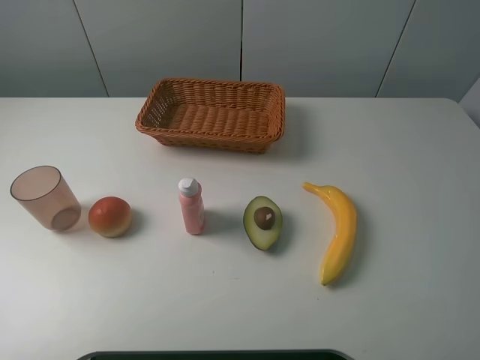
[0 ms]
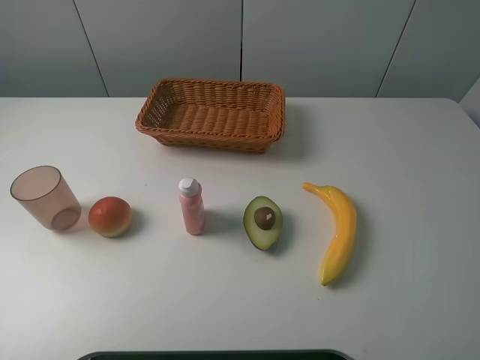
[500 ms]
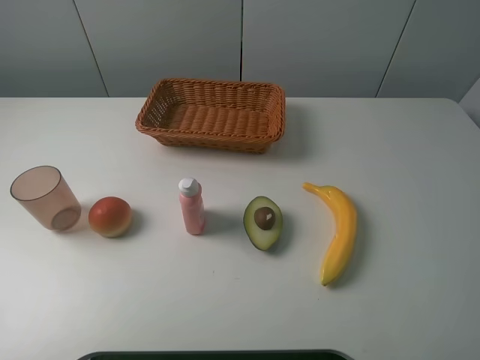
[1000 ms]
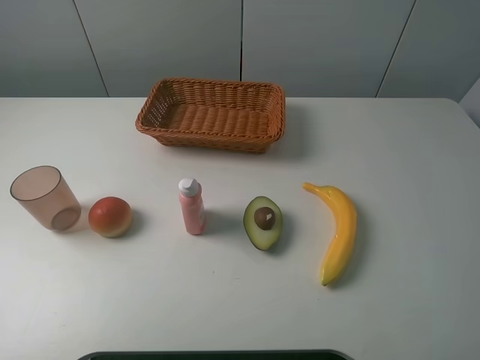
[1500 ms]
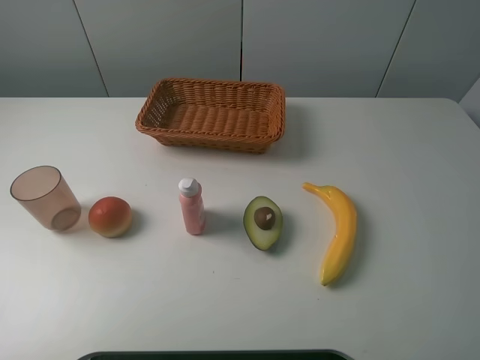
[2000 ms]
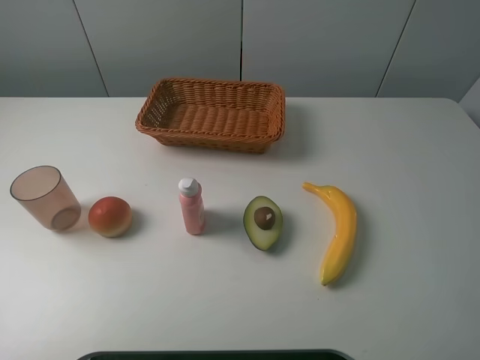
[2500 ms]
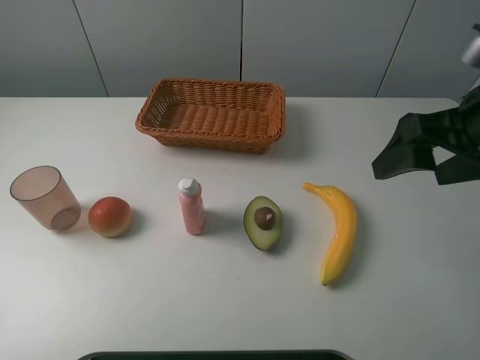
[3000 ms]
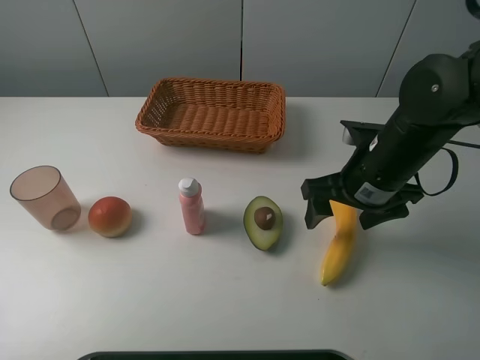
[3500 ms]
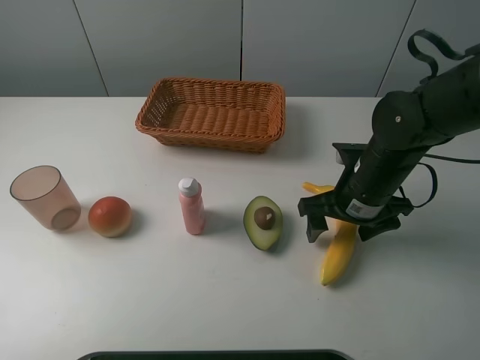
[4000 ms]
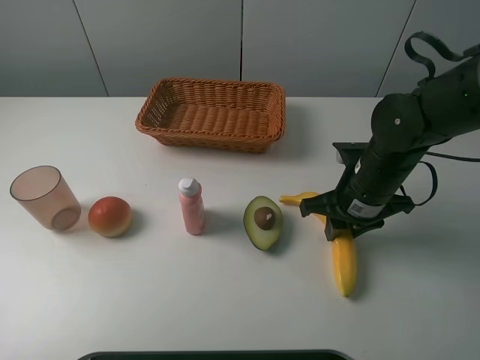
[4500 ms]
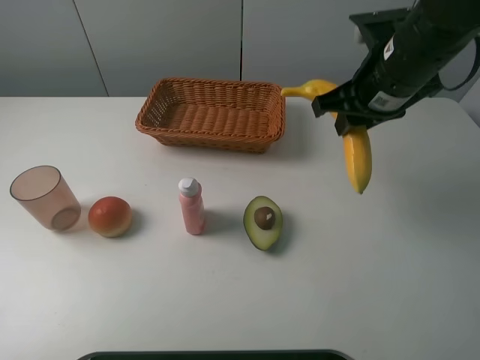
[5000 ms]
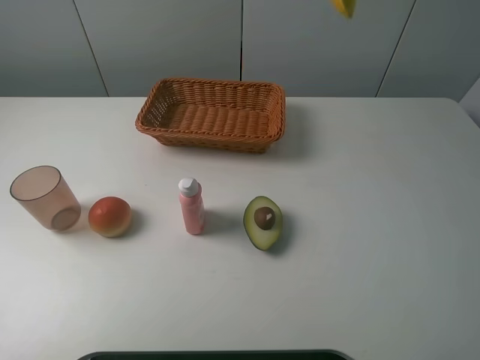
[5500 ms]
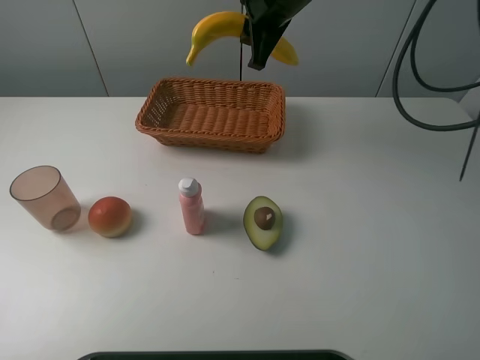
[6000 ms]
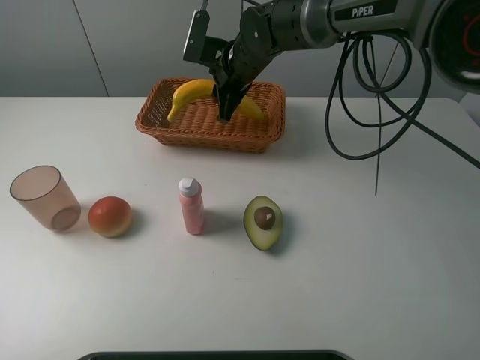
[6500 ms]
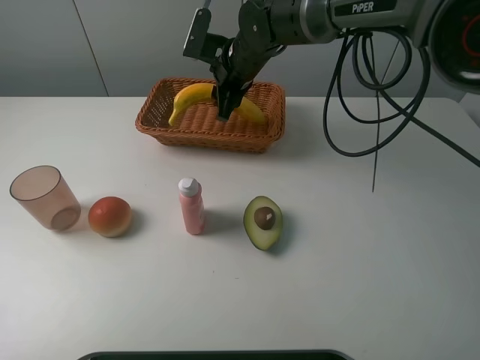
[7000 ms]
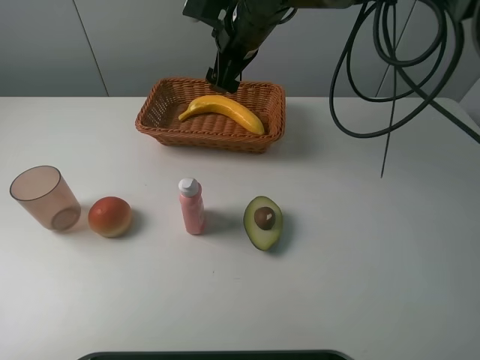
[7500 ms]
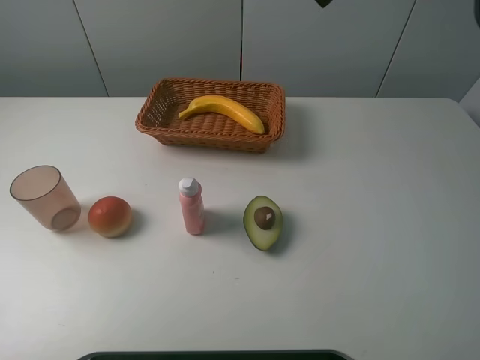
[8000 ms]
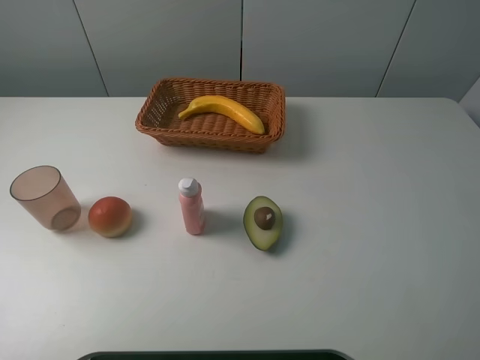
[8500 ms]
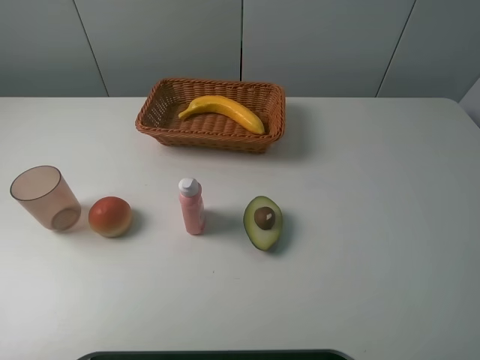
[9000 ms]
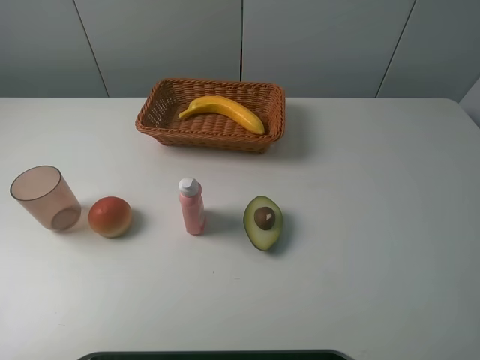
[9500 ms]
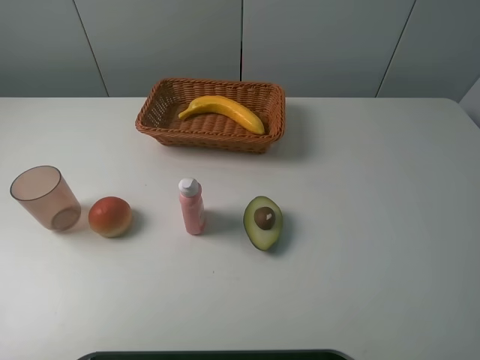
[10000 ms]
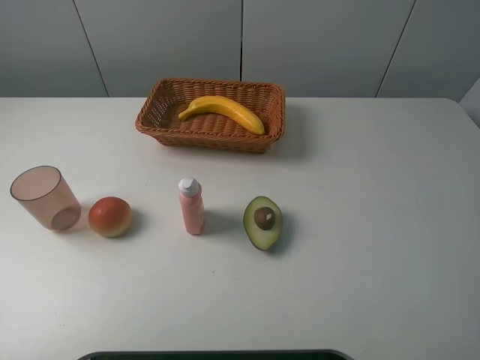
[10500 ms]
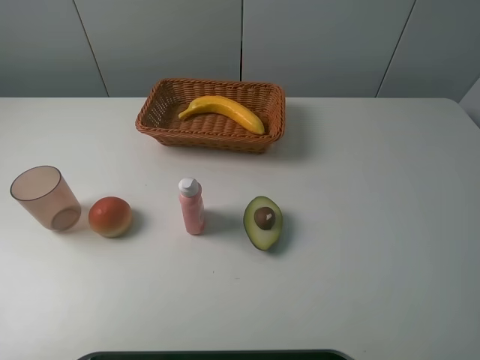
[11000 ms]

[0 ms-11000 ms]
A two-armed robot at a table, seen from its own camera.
Task of the whole recording: randomly pick up an item from the table and put it in the basket.
Step, 0 ms to 4500 ms: Grasp the banana with the right gripper.
Step, 5000 ms to 7500 ms: Place the banana into the basket with the right gripper.
0 ms to 2000 ms: Both grippers stay about where they are.
2000 ms to 3500 ms: The right gripper heads forward, downward and to the left, covering roughly 30 cm.
3500 ms to 5500 ms: The right gripper moves upward and forward, about 25 cm, and closes its fingers.
5500 ms to 7500 ms: The right gripper moves downward, to the left and forward, approximately 20 cm, and opens up.
7500 ms to 9000 ms: The right gripper goes about 40 cm backward and to the right.

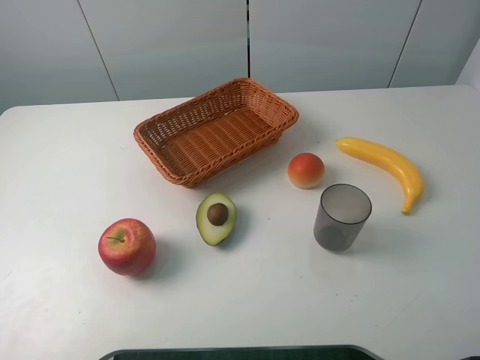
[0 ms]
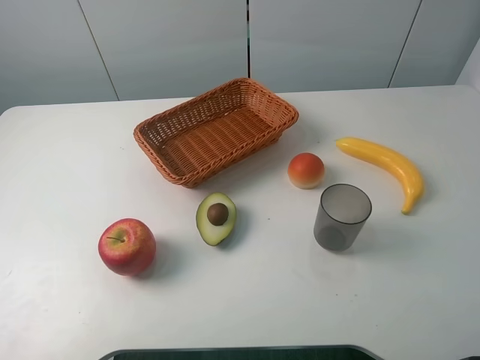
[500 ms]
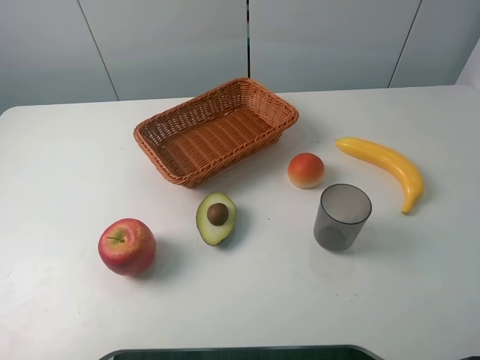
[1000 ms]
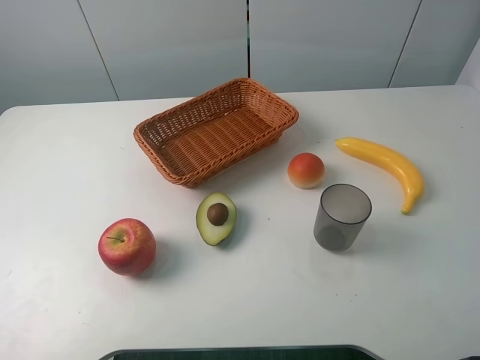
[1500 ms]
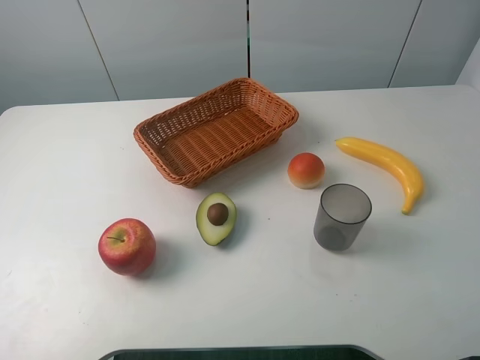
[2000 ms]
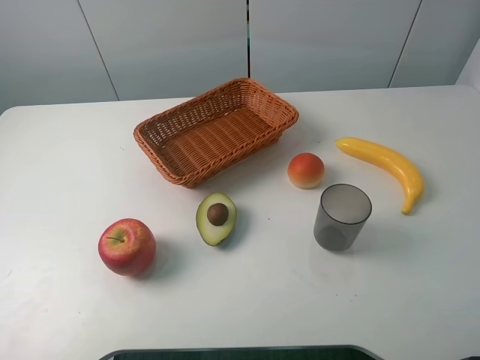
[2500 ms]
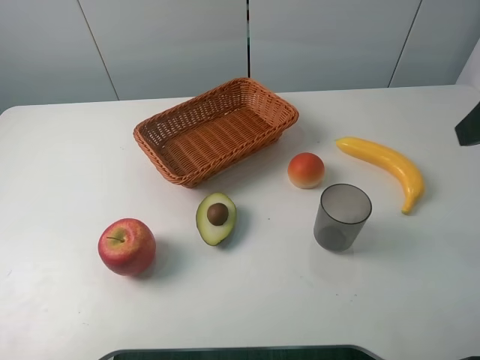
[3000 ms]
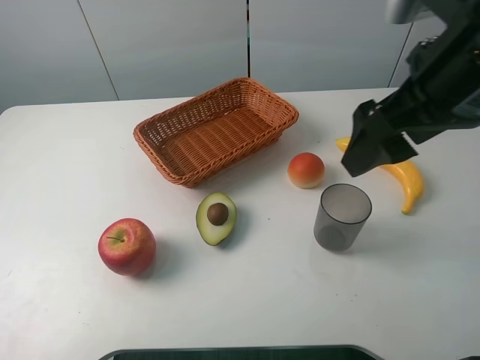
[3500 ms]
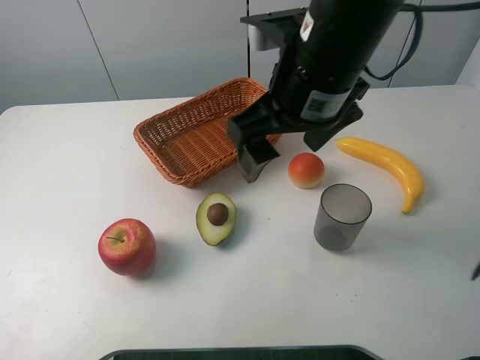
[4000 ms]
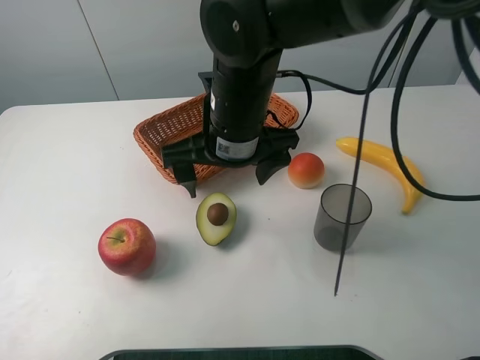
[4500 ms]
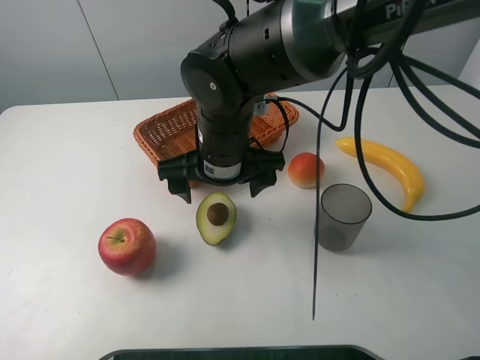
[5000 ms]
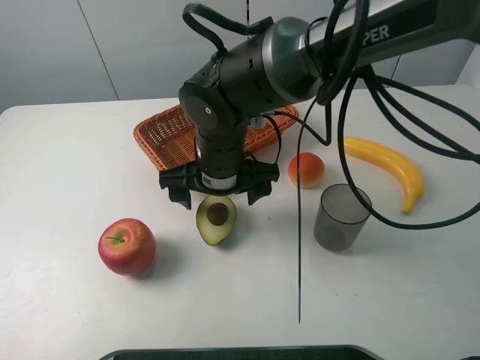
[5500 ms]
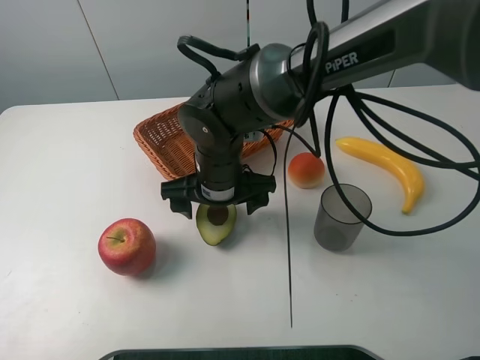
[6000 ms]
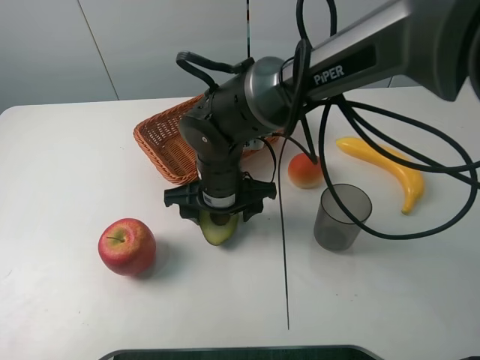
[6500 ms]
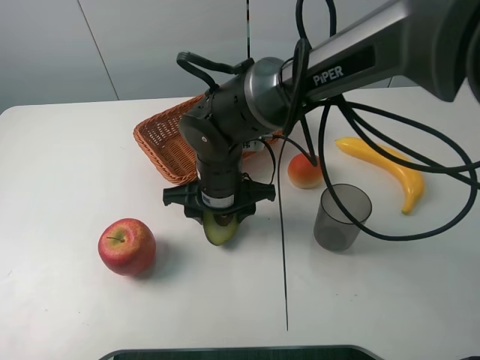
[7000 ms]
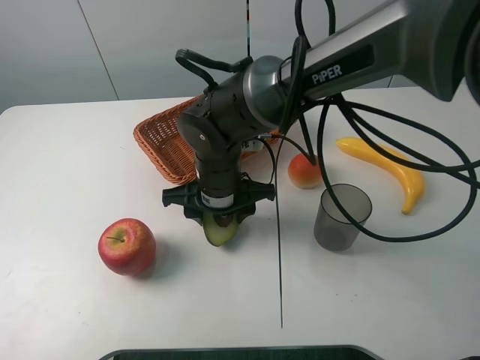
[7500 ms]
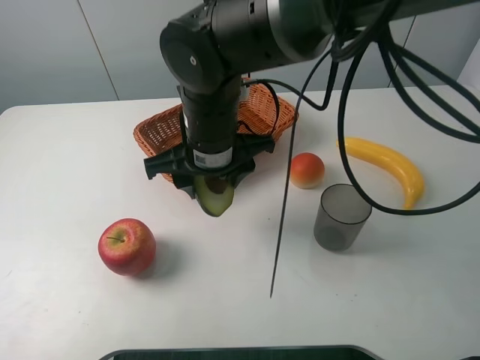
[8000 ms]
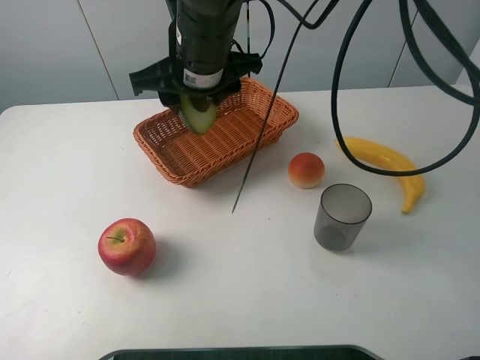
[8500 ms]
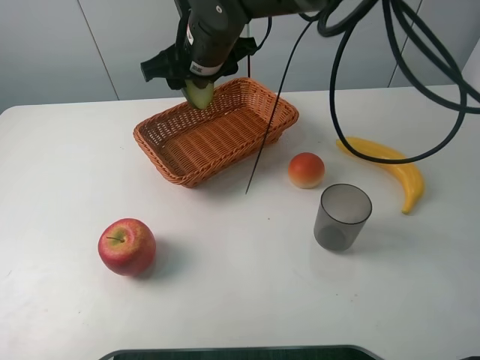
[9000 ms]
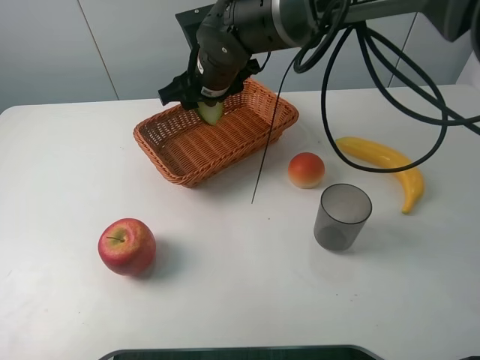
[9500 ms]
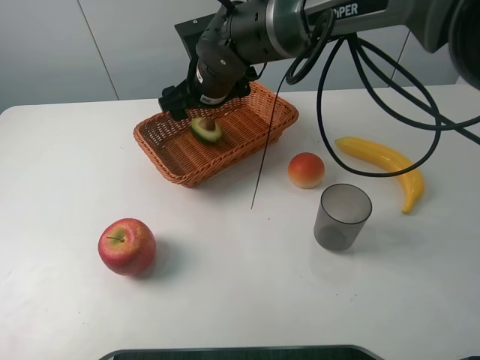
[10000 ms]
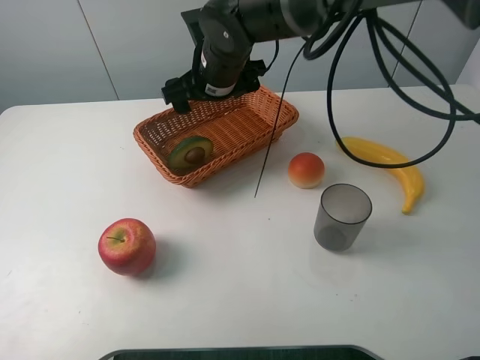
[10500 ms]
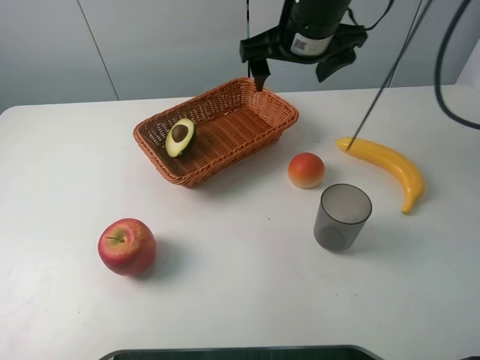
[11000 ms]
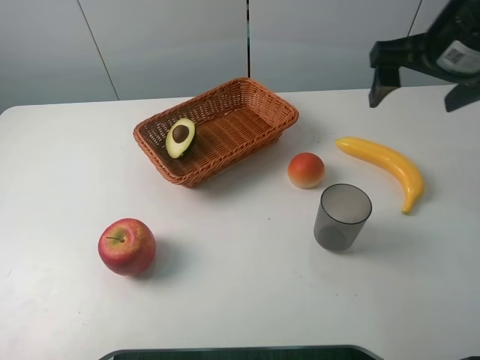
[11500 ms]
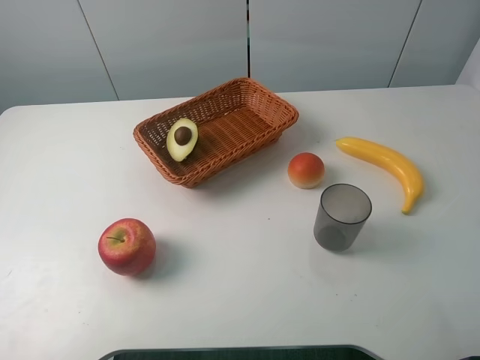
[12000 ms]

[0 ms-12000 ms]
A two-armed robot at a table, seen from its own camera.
Task of the whole recording: randomly pick up an item from the table and put it in the basket.
Step, 0 ms to 6500 ms: Grasp the avocado with the right gripper.
Step, 7000 ms to 10000 ms: Place the avocado into the basket with the right gripper.
2000 ms to 4000 ms: The right gripper shifts about 30 cm to the left and forward.
4000 ms to 6000 ms: The right gripper is displaced downward and to the left by roughly 20 cm.
6000 ms to 8000 ms: The right gripper travels upward by approximately 10 cm, and closes.
8000 ms to 10000 ms: The right gripper is displaced forward by roughly 10 cm, and opens up.
10000 ms to 12000 ms: The right gripper shifts approximately 40 cm to the right, backward and upward.

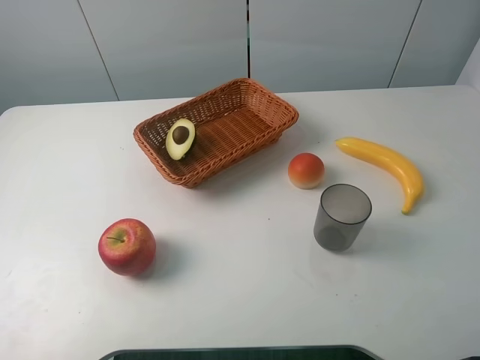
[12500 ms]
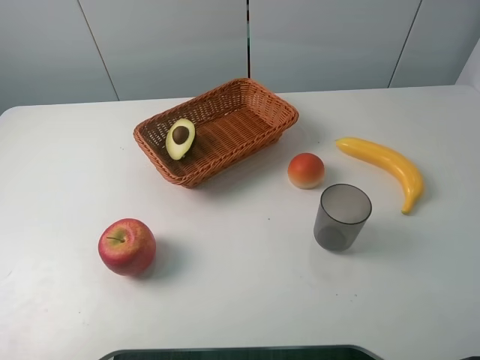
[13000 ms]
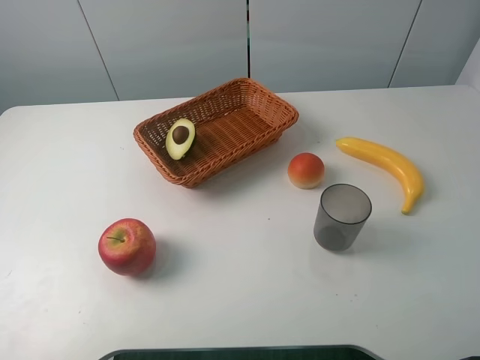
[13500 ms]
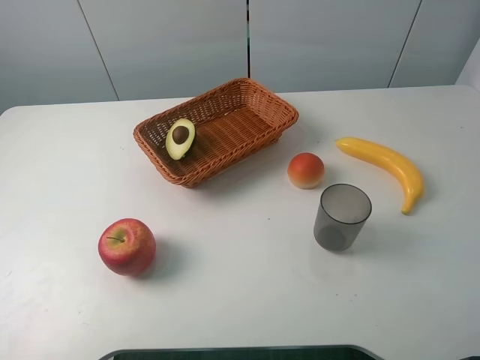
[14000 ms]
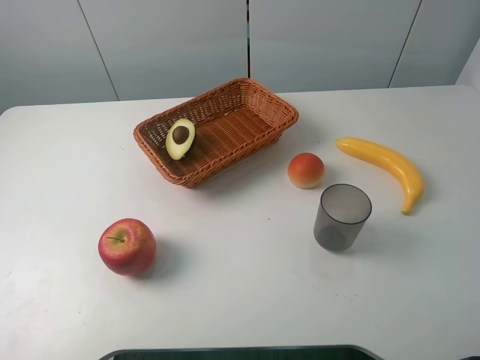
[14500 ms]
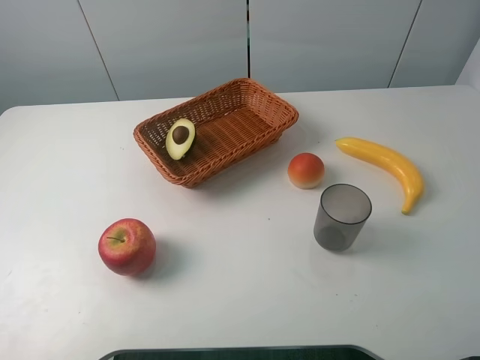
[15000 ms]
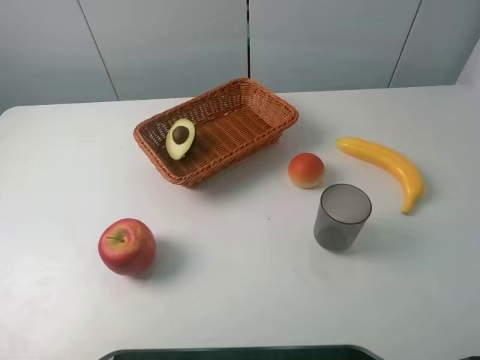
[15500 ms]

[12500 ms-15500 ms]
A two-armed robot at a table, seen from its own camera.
Task of the whole recording: randomly pick up an item from the table and put it in the basket.
14000 ms to 15500 ms: Neither gripper changes place.
